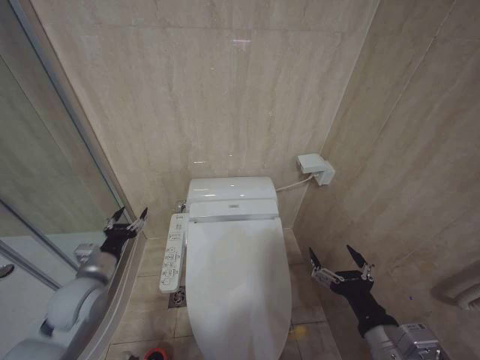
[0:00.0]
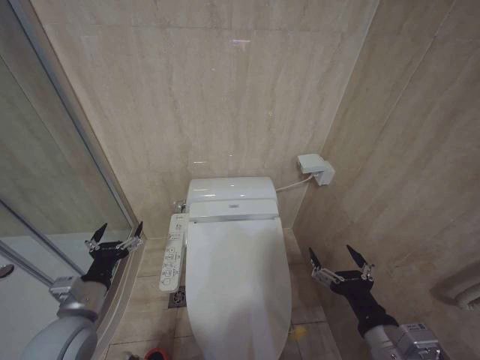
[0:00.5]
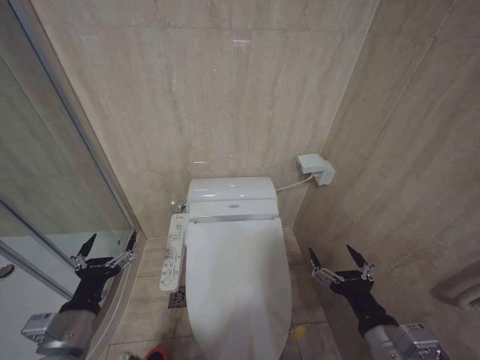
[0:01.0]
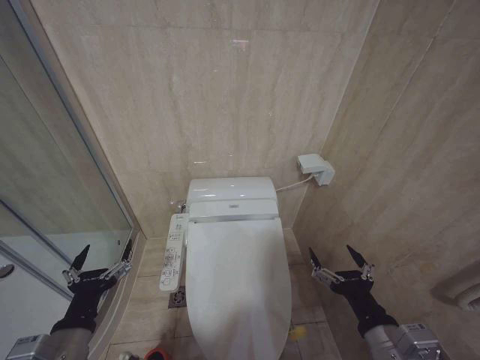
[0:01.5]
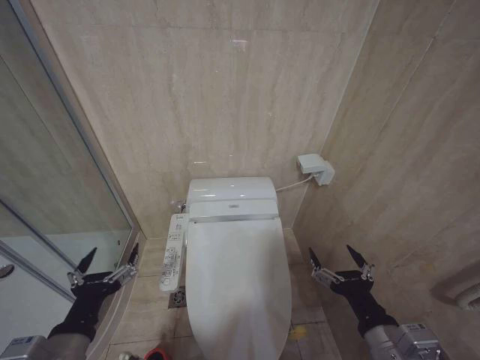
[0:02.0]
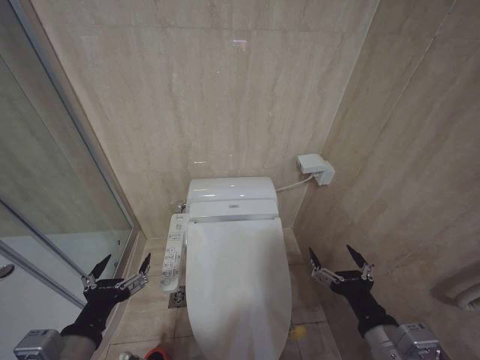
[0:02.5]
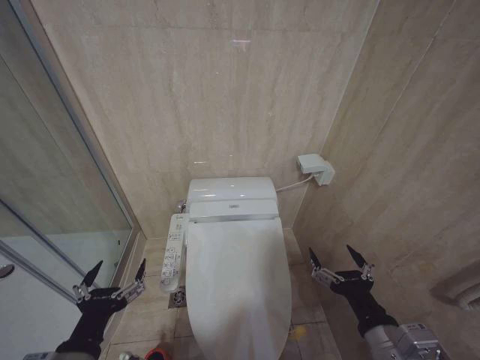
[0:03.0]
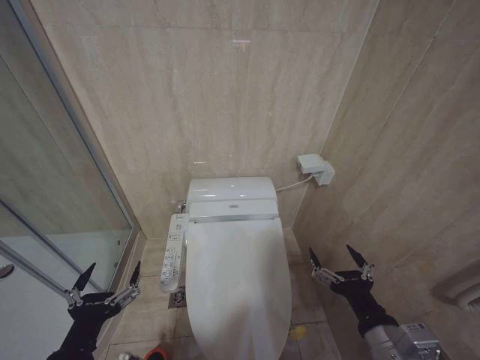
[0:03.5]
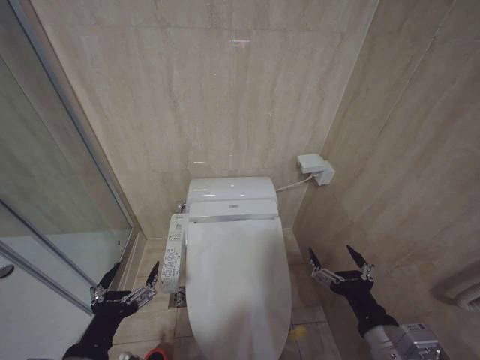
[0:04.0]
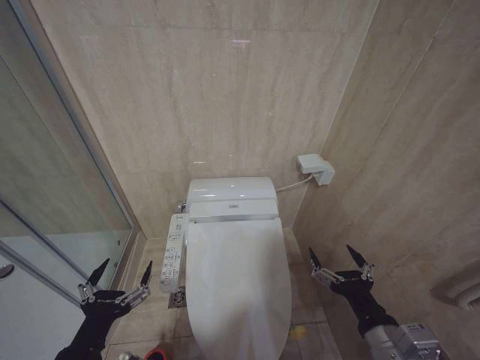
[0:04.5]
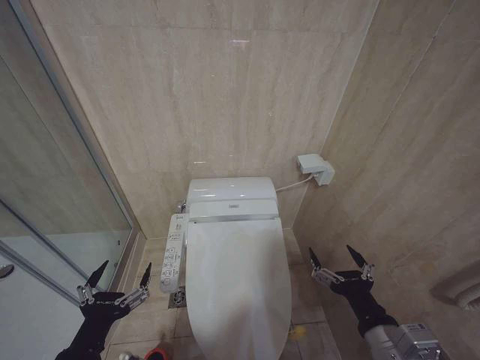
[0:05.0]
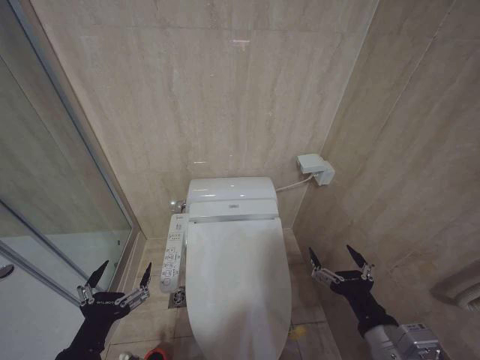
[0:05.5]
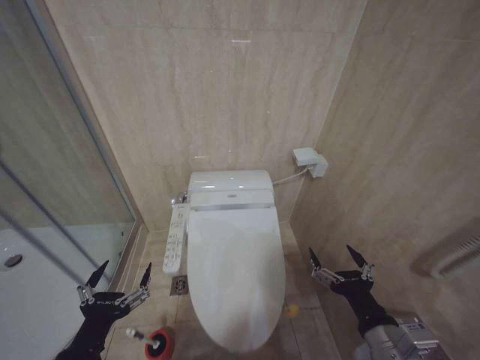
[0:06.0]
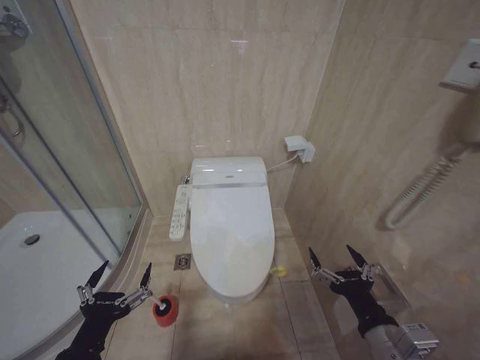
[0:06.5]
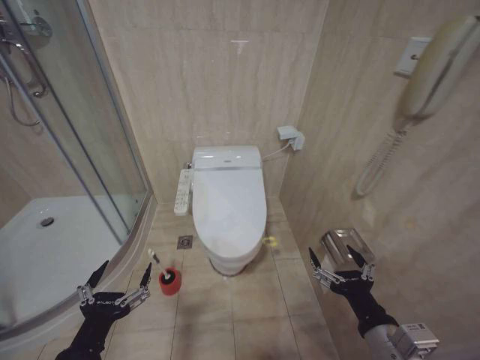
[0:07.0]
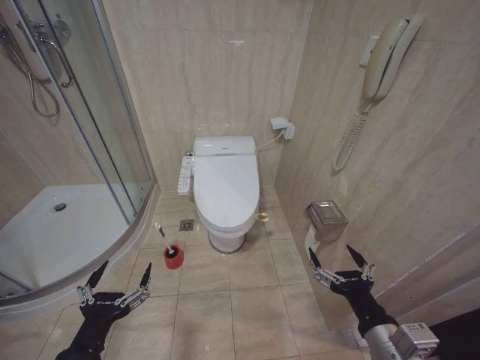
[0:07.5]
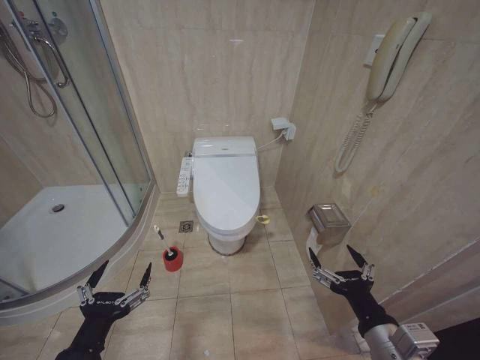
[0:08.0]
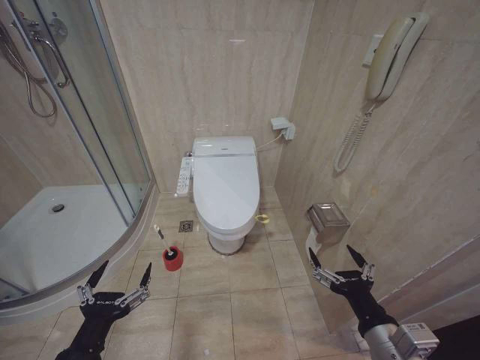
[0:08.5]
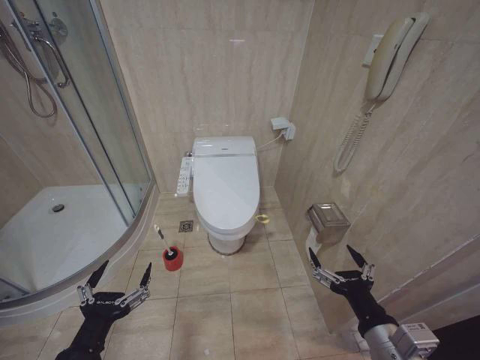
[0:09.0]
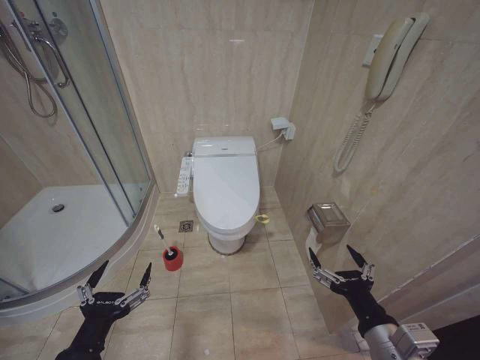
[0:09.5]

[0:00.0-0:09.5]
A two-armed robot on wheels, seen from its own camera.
Task of the whole recording: Open the toilet lid, clean the toilet bowl with a toilet brush, close the toilet lid, and flush.
0.0 to 2.0 s: The left gripper travels backward by roughly 20 cm, and opens its fingers.
2.0 to 5.5 s: The grippers move only a little.
7.5 to 9.5 s: Both grippers stay about where they are.

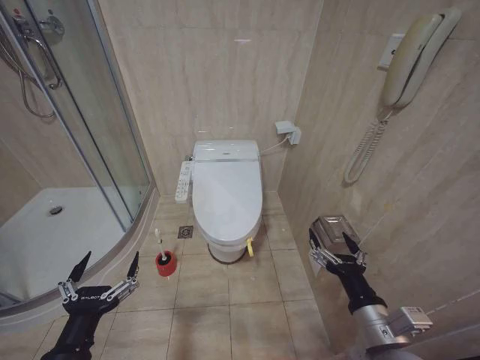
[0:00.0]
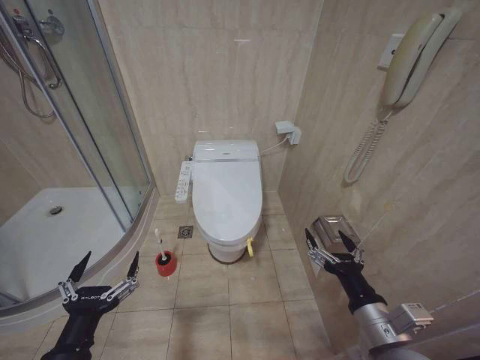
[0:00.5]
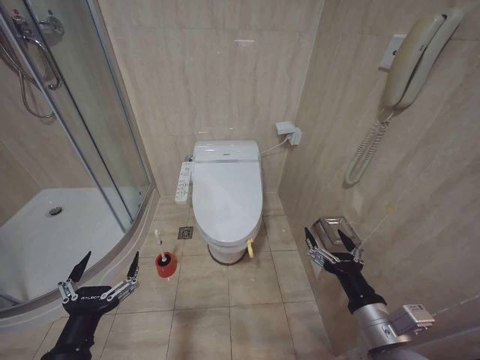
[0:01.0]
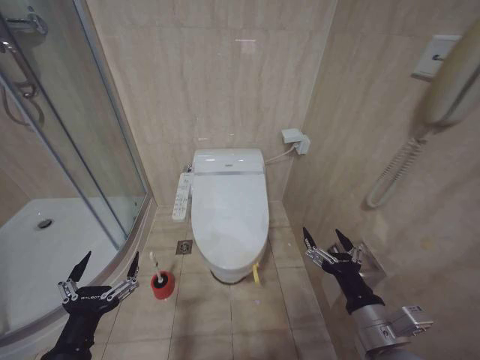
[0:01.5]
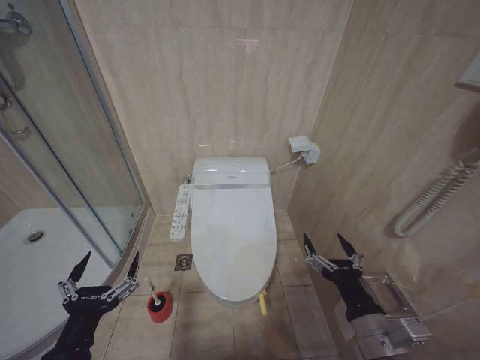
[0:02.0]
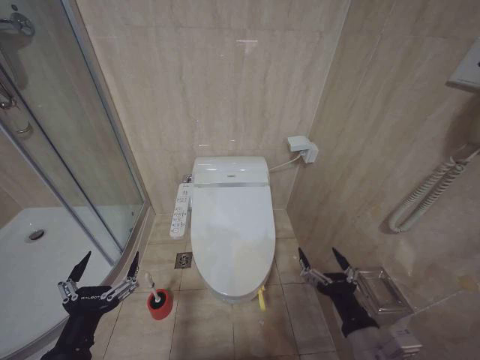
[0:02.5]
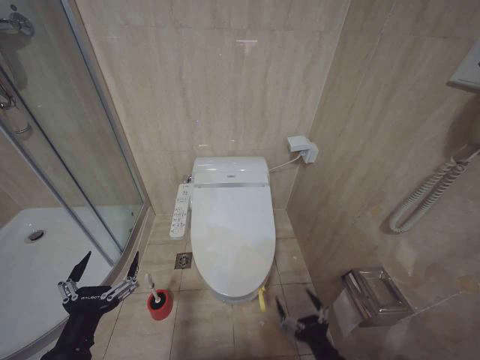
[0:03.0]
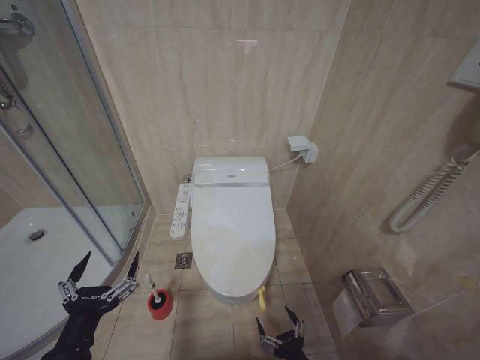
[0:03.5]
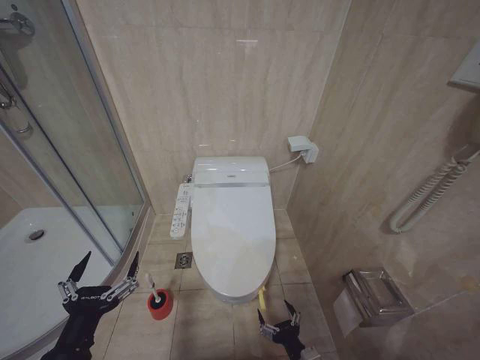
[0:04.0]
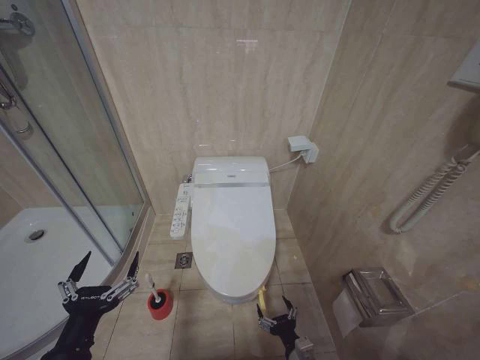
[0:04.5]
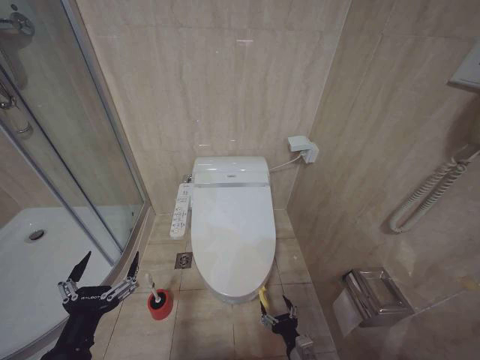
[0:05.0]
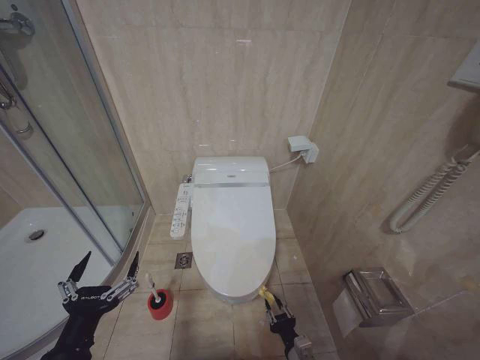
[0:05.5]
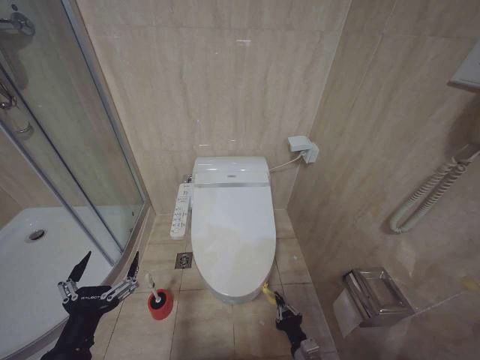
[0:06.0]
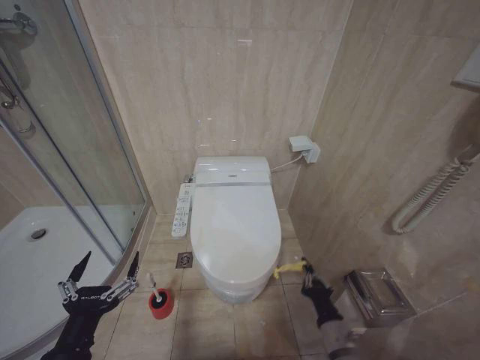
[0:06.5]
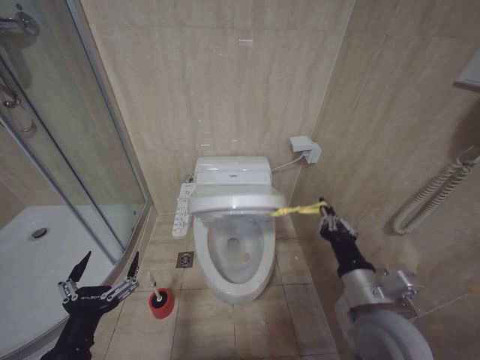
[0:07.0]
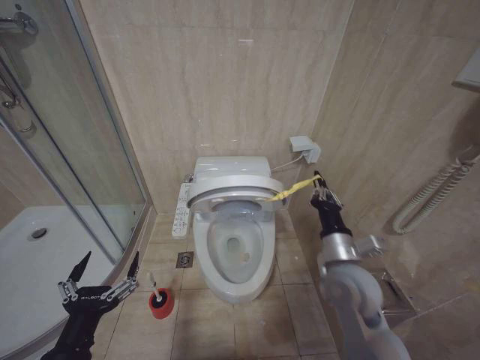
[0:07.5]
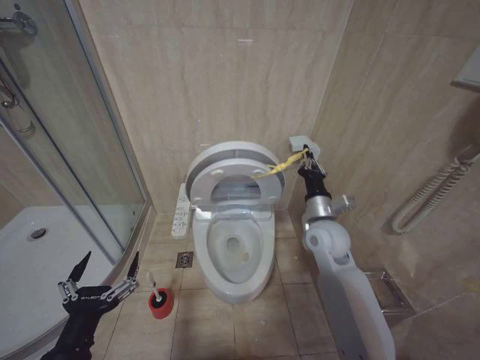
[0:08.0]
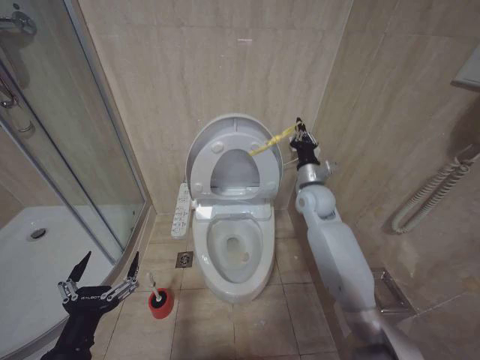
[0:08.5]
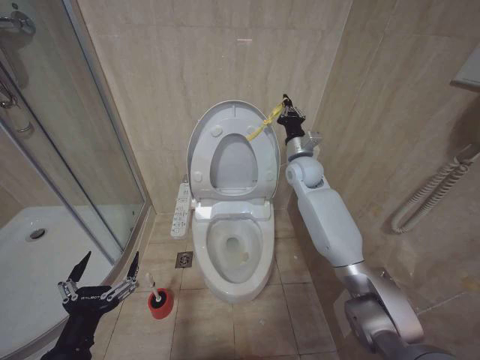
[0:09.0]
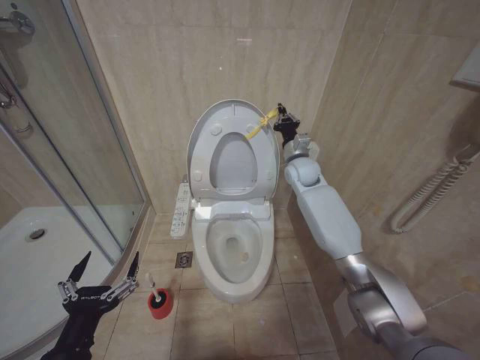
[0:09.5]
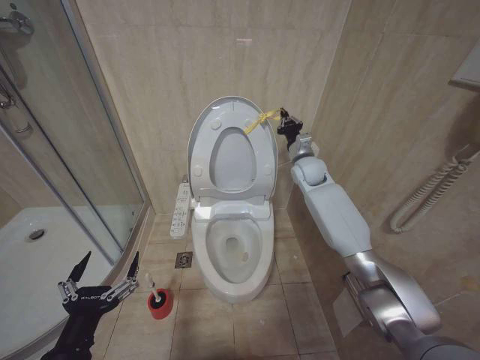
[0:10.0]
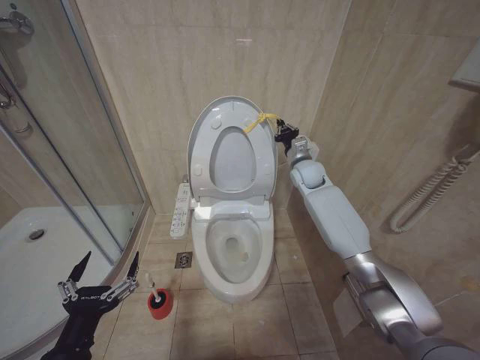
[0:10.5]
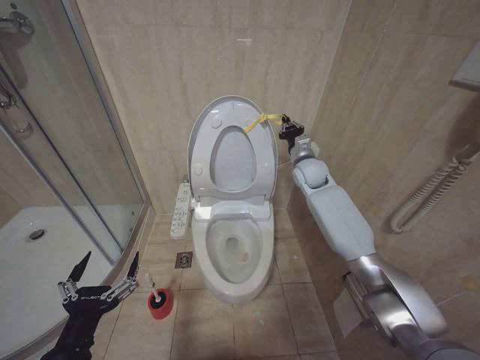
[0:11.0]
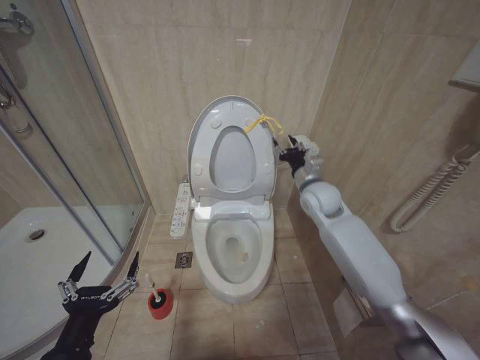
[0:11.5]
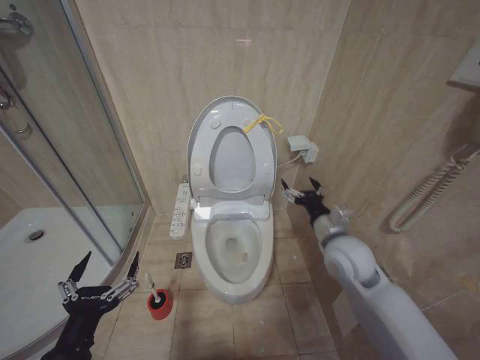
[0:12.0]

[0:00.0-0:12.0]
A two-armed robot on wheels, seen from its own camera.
Task of the whole recording: Open the toilet lid, clean the toilet bowl with a toilet brush, close the toilet lid, and flush.
2.0 to 4.0 s: The right gripper goes roughly 20 cm downward.
4.0 to 6.0 s: The right gripper shifts by some 5 cm, and closes.
6.0 to 8.0 s: The right gripper goes about 40 cm upward and forward.
8.0 to 10.0 s: The right gripper moves forward and upward, roughly 20 cm.
10.0 to 12.0 s: The right gripper moves backward, some 25 cm, and opens its fingers.

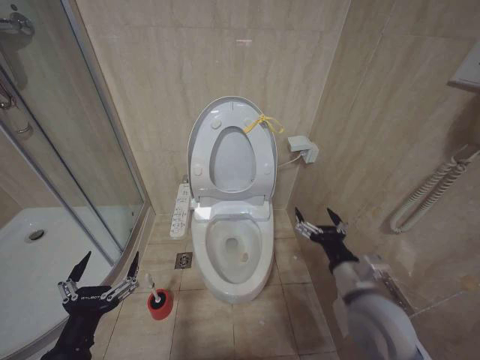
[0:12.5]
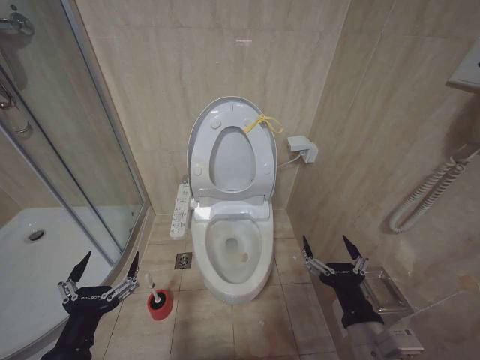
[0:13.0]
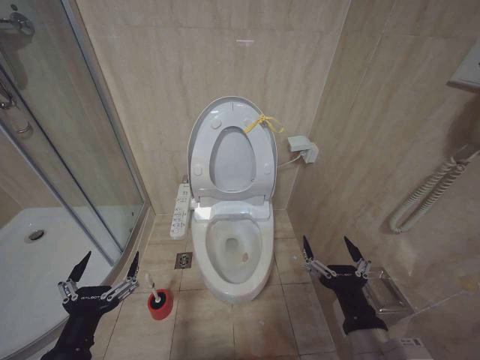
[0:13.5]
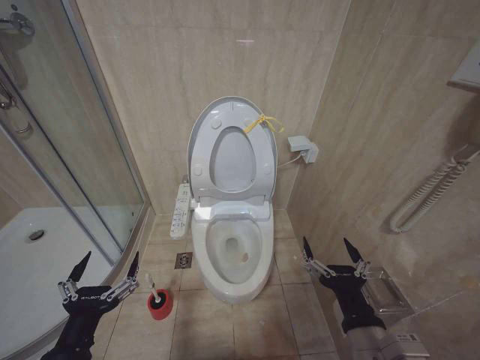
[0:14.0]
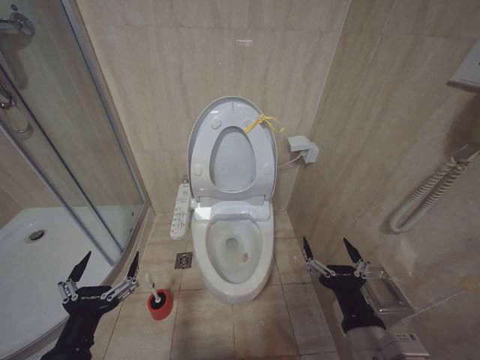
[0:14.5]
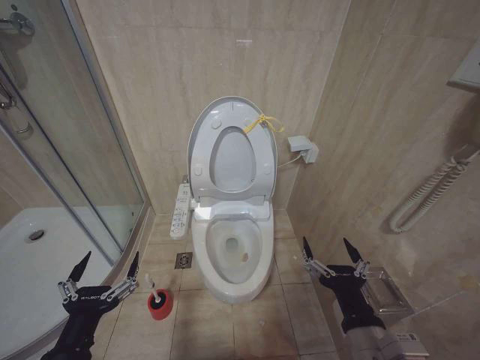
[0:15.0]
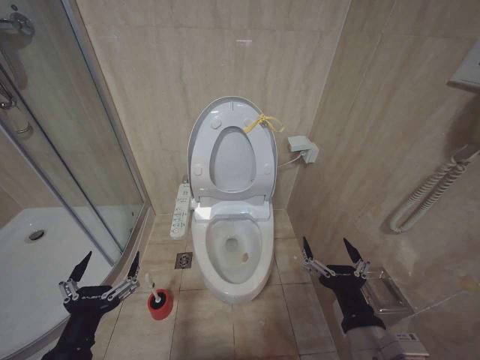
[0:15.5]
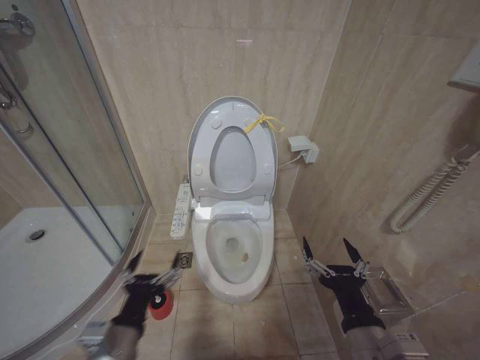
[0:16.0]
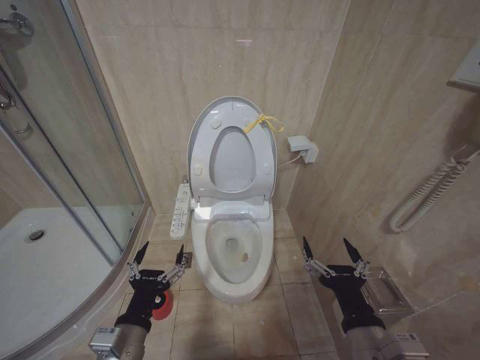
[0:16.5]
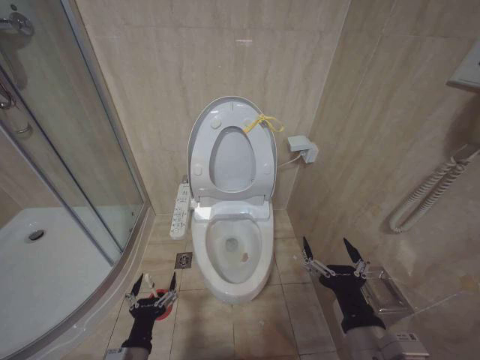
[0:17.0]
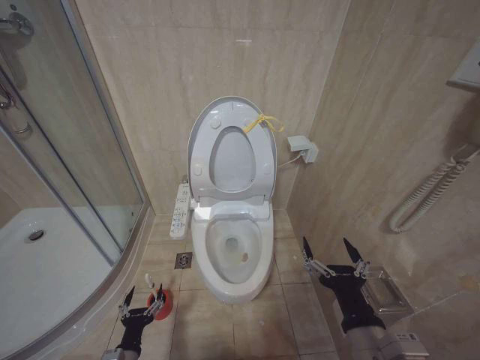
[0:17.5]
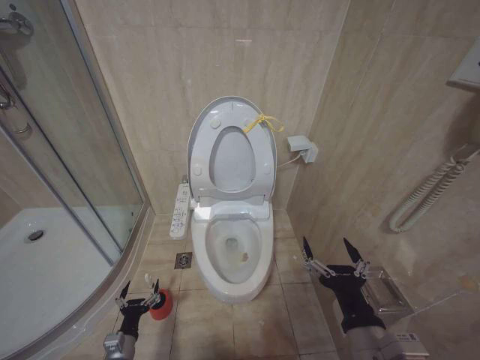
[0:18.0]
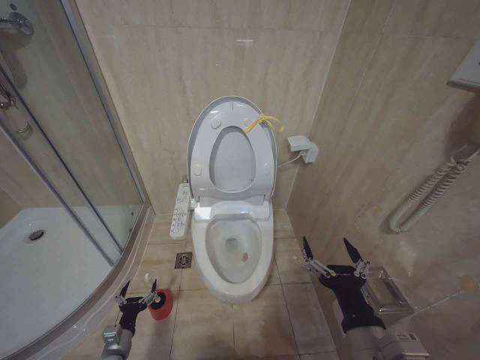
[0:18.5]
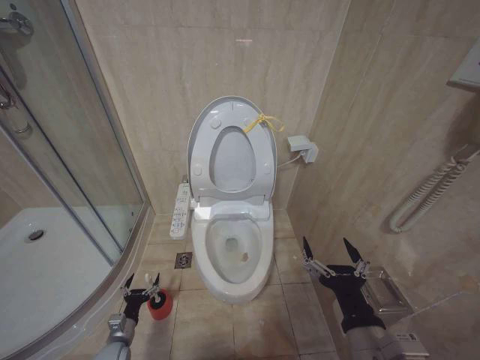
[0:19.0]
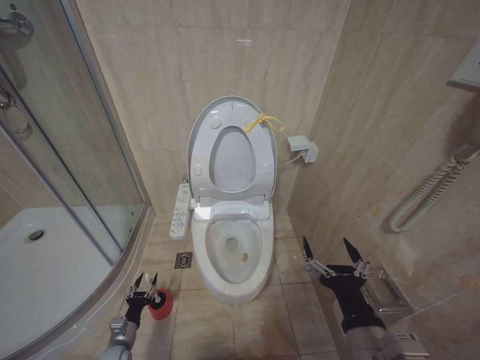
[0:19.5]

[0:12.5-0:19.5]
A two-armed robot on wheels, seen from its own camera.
Task of the whole recording: Open the toilet lid, clean the toilet bowl with a toilet brush, close the toilet lid, and flush.
12.5 to 14.5 s: The right gripper shifts about 15 cm backward.
14.5 to 16.0 s: The left gripper ends up about 5 cm from where it was.
16.0 to 17.5 s: The left gripper is displaced downward by roughly 20 cm.
17.5 to 19.5 s: The left gripper shifts roughly 15 cm downward, forward and to the left.
